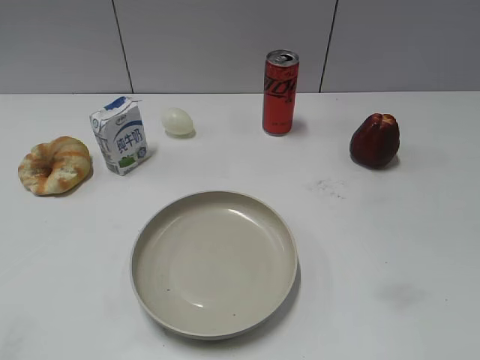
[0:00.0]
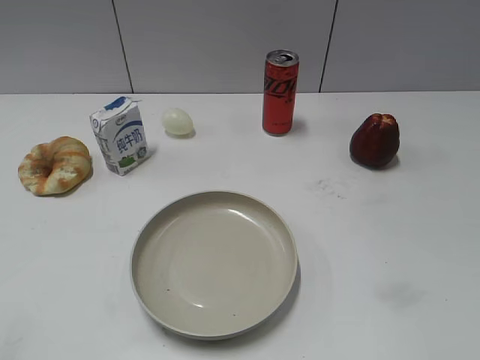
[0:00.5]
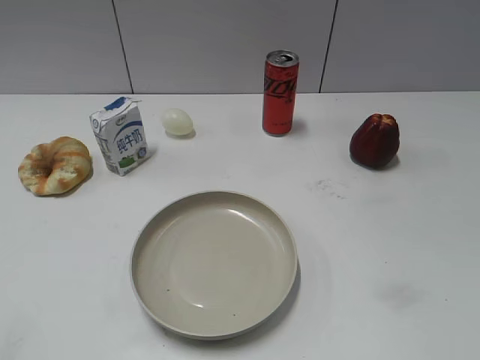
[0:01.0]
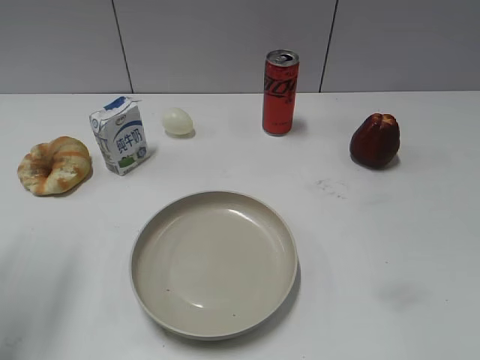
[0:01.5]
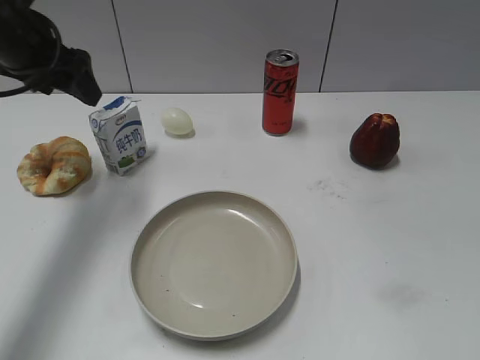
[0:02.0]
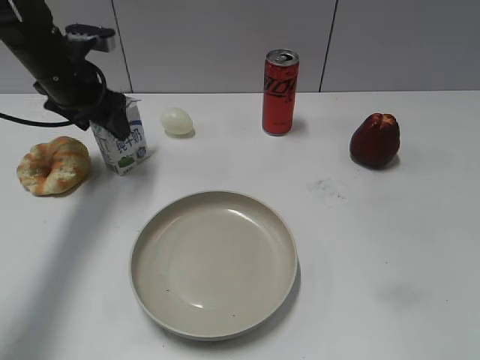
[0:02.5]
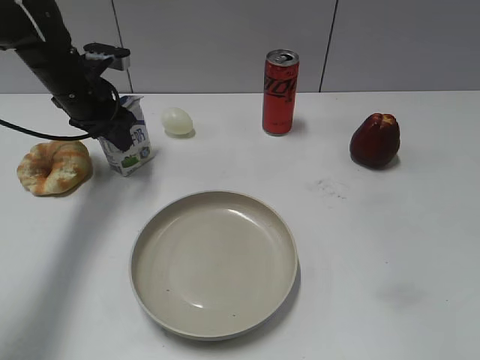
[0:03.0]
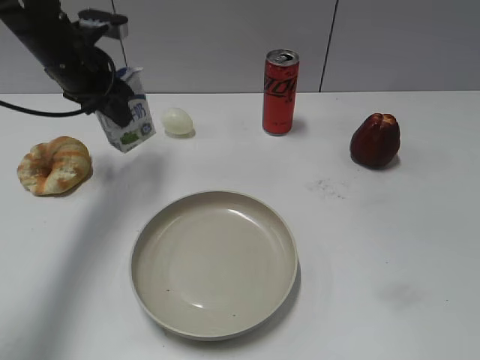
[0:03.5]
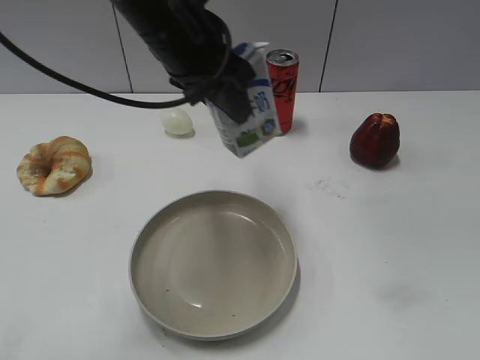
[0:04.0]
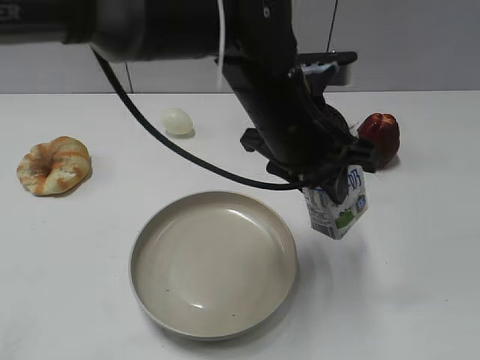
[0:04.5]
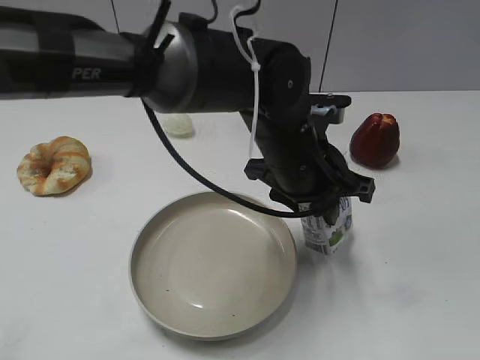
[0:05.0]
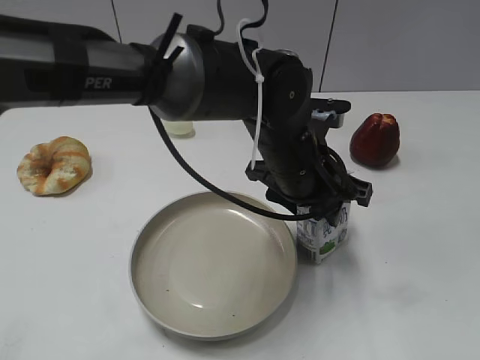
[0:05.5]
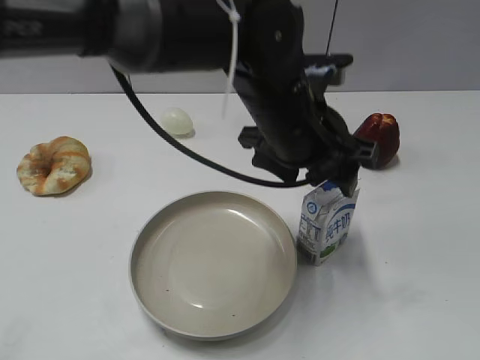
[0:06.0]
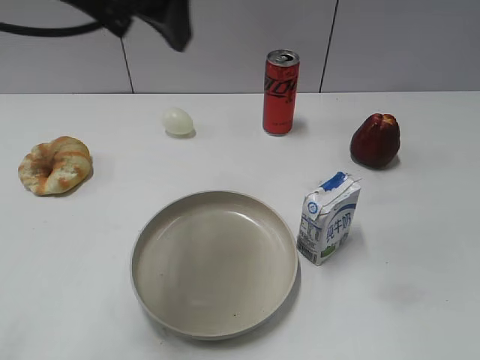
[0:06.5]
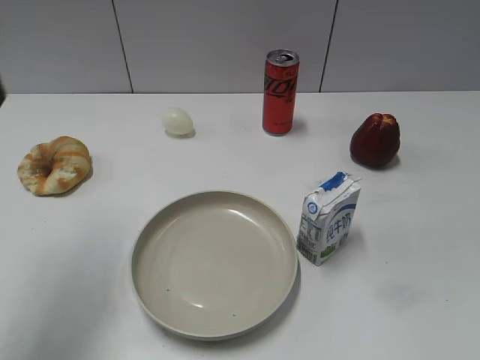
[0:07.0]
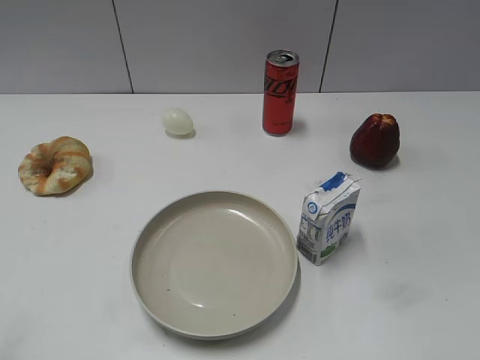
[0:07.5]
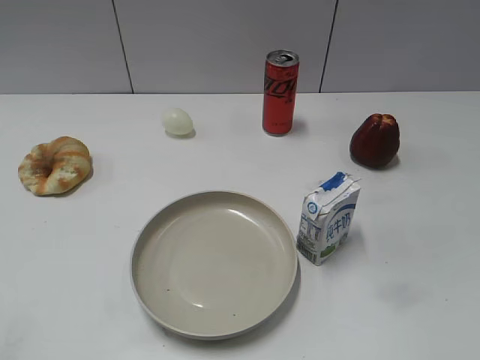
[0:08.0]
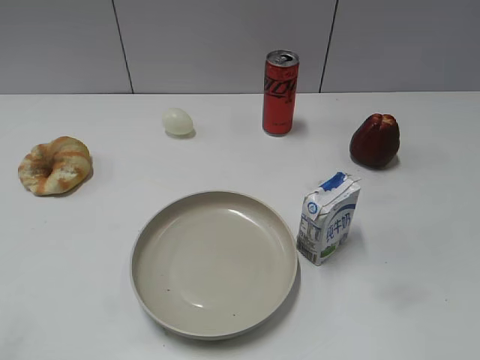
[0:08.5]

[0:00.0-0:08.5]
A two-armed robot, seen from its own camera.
Step, 0:01.0 to 0:03.0: Grasp the milk with left gripper.
Step, 0:03.5 to 0:05.5: Place the milk on the table with left gripper.
0:02.0 to 0:04.0: The left gripper travels to the right and backward by roughly 20 cm, and closes its fingers.
0:04.0 to 0:06.5: The left gripper is displaced upward and to the left by about 15 cm, and opens its fingers.
0:06.5 to 0:08.5: The left gripper shifts approximately 35 cm backward, to the left and downward.
